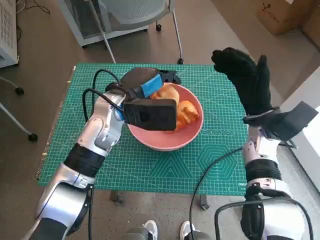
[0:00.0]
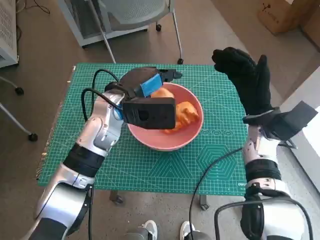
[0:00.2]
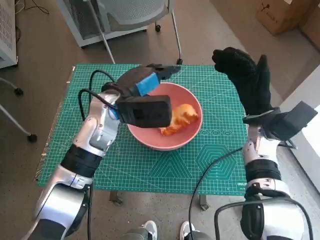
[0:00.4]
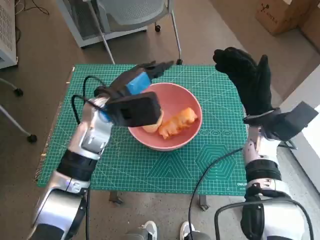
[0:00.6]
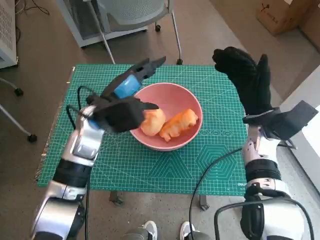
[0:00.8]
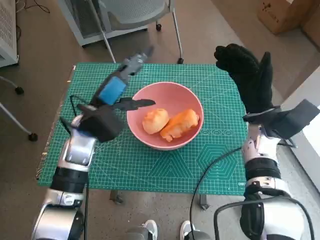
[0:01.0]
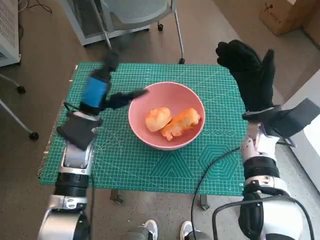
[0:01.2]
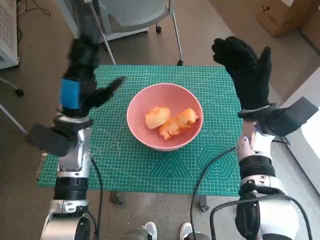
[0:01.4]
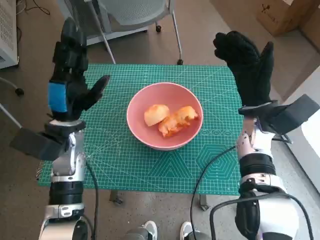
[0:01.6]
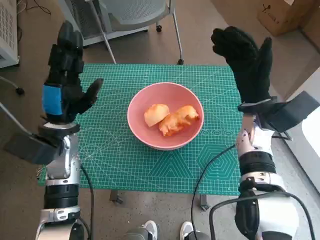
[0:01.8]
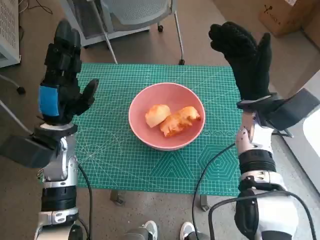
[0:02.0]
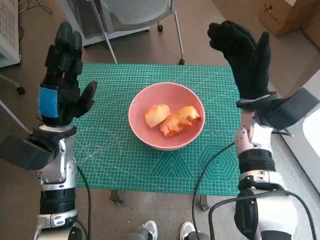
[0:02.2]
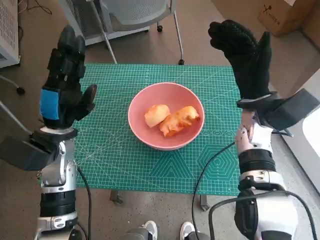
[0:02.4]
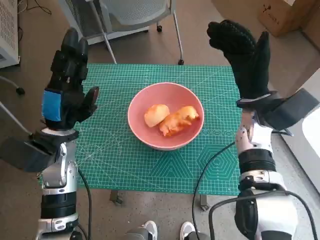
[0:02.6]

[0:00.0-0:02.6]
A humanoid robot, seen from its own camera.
0:00.0 to 0:01.2: The left hand moves to the left, some 5 cm.
0:01.2 to 0:02.6: The left hand shifts by some 5 cm.

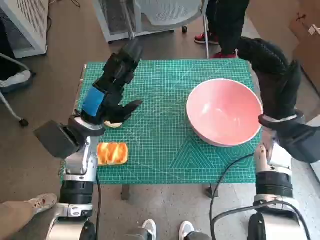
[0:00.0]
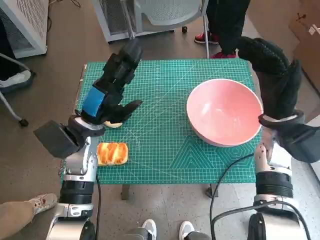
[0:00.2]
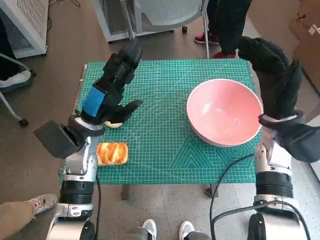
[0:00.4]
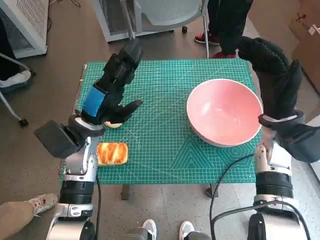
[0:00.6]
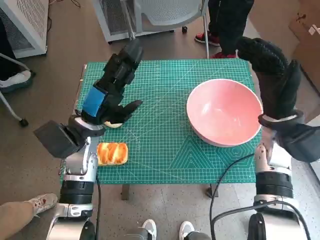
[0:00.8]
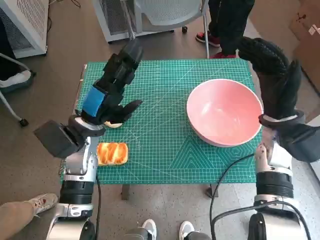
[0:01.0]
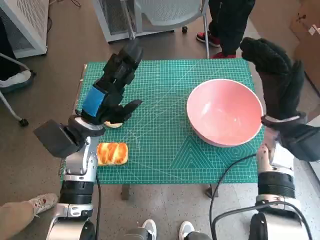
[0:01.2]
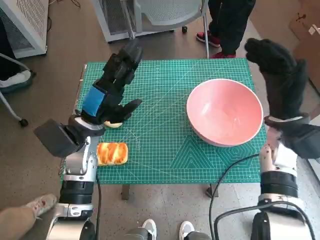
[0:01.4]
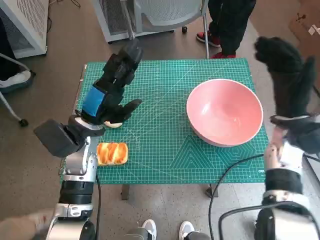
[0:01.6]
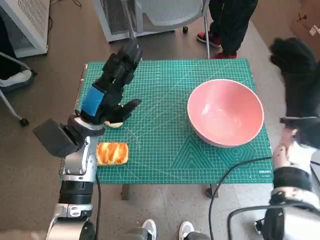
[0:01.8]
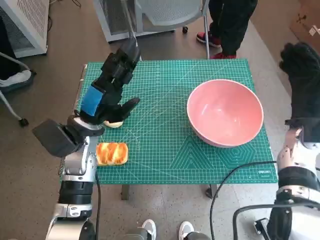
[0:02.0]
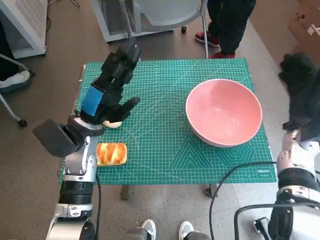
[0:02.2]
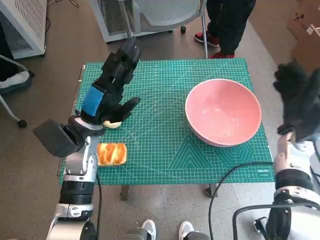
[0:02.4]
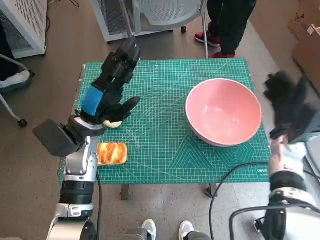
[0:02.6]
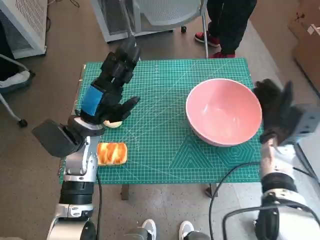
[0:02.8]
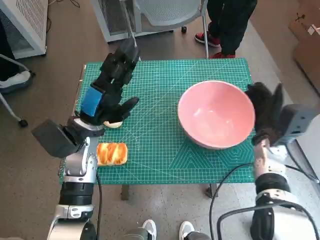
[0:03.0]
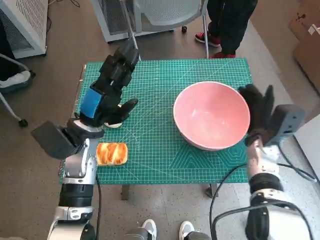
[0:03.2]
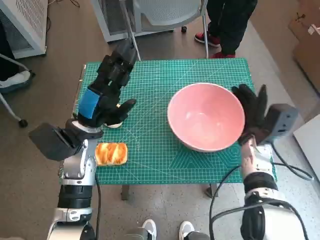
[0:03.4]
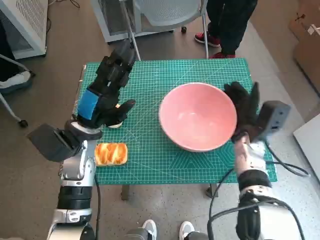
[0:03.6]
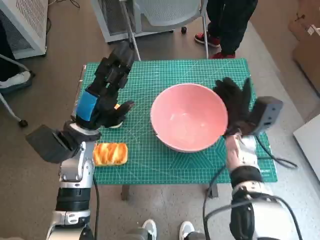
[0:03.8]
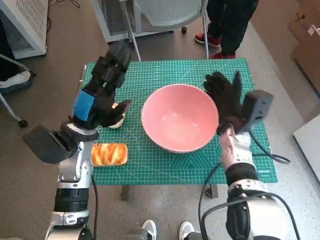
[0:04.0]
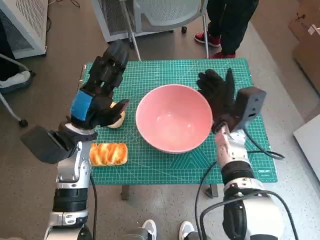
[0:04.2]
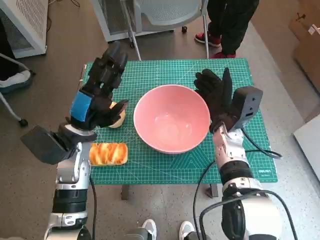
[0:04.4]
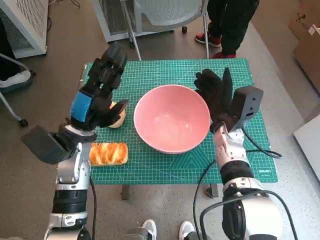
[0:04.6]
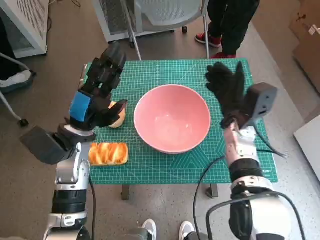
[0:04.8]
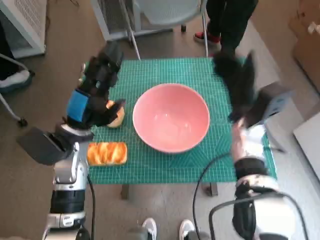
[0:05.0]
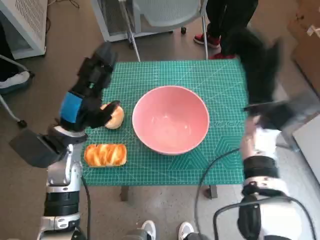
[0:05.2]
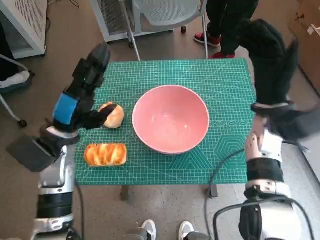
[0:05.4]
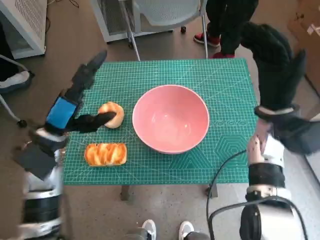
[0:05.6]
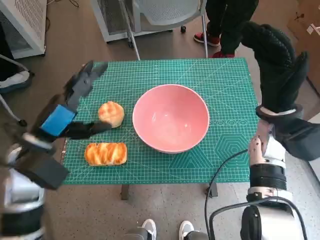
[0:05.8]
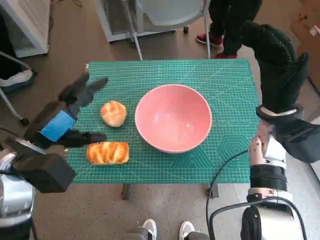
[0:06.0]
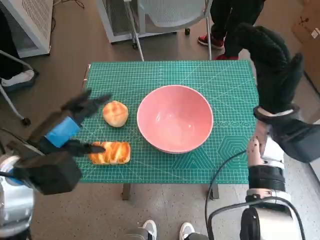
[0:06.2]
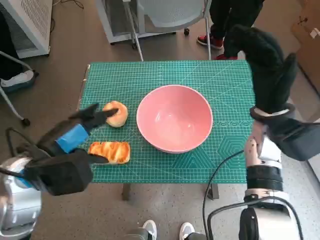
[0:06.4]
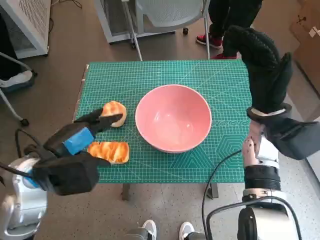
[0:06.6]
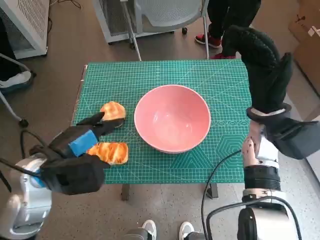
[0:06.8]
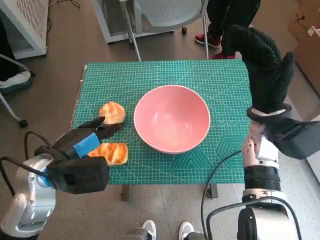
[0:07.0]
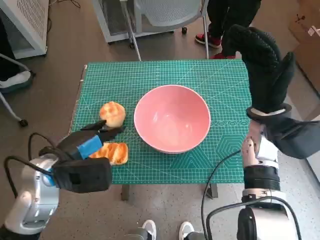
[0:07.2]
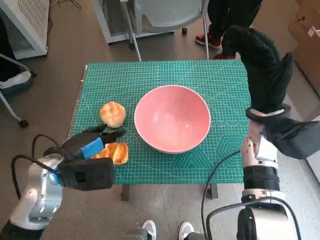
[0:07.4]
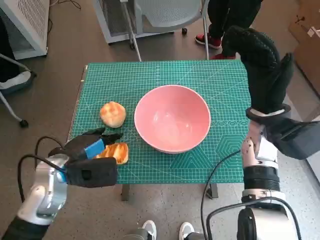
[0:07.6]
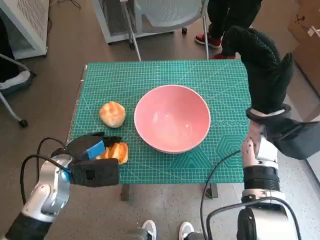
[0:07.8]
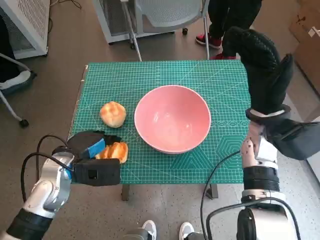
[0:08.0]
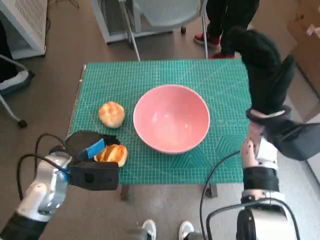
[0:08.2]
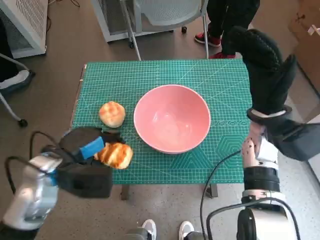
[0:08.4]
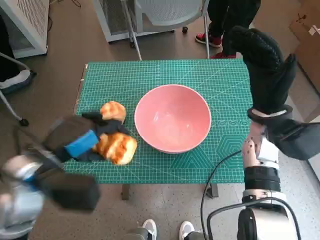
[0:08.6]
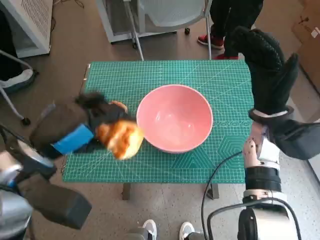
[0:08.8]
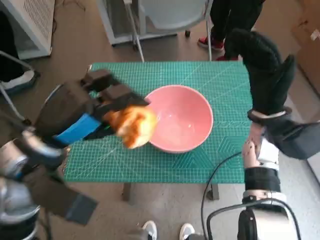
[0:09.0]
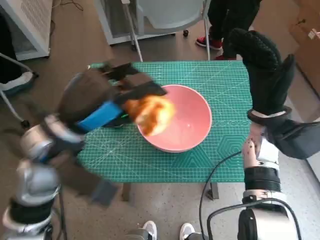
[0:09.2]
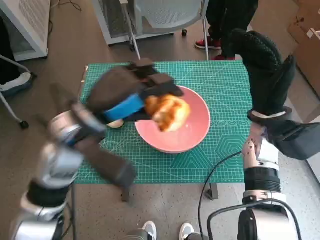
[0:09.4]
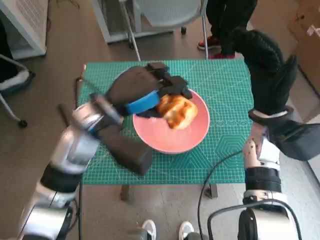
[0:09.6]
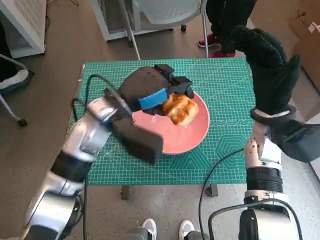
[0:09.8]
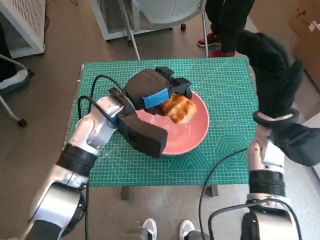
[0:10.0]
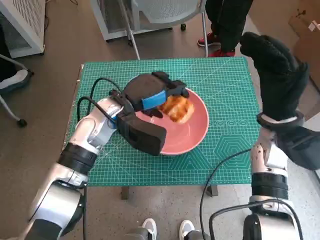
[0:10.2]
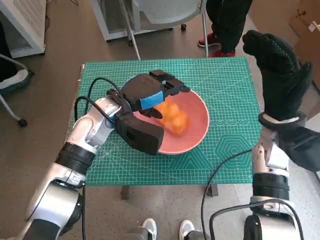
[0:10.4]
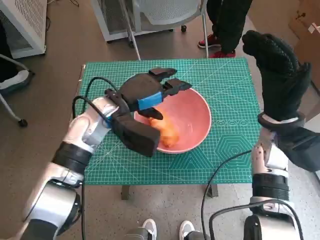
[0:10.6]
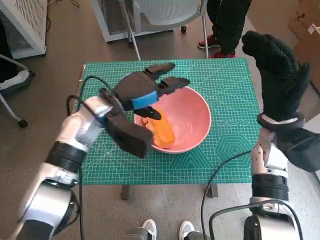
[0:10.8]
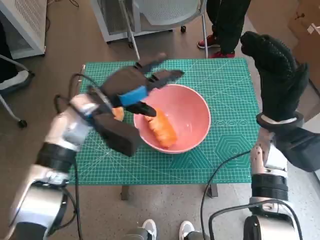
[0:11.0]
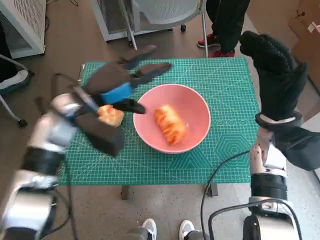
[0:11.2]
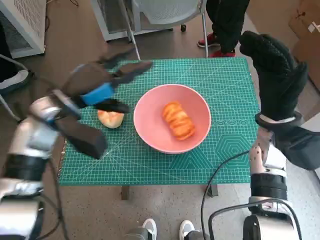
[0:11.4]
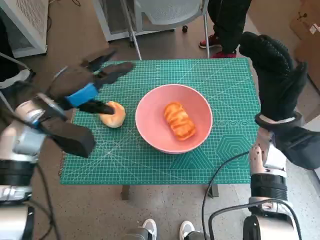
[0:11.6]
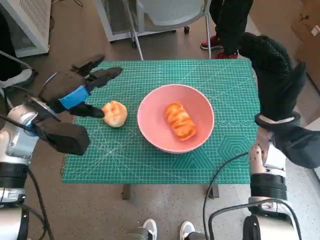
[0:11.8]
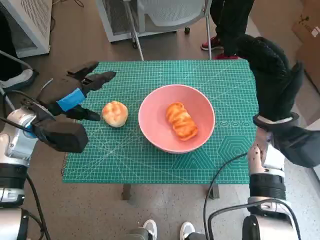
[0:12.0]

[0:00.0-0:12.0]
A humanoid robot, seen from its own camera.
Step, 0:00.0 to 0:04.6: Move the pink bowl to the center of table with right hand.
Step, 0:04.8 to 0:08.0: Grasp the long bread with left hand.
Step, 0:08.2 to 0:10.6: Place the long bread in pink bowl with left hand.
0:01.6 to 0:03.0: The right hand heads downward, covering approximately 10 cm.
0:03.0 to 0:04.4: The right hand travels to the left by some 10 cm.
0:04.4 to 0:06.0: The right hand heads upward and to the right, covering about 10 cm; the left hand travels backward and to the left by roughly 10 cm.
0:06.0 to 0:07.6: The left hand heads downward, covering approximately 5 cm.
0:07.6 to 0:09.0: The left hand travels upward by roughly 10 cm.
0:09.0 to 0:10.4: The left hand travels forward, to the right and downward by about 15 cm.
0:10.4 to 0:12.0: The left hand moves to the left, approximately 15 cm.

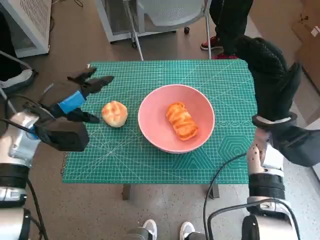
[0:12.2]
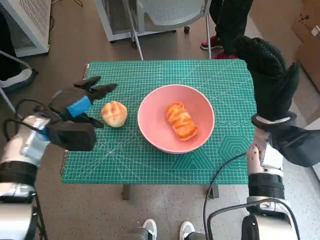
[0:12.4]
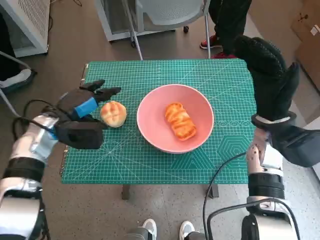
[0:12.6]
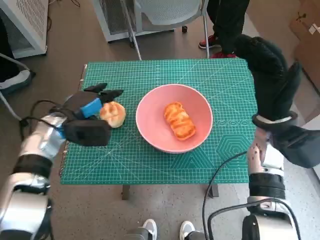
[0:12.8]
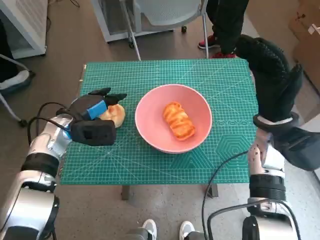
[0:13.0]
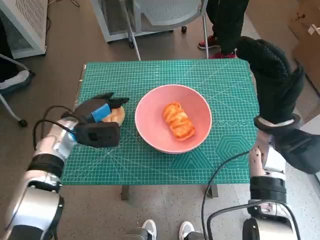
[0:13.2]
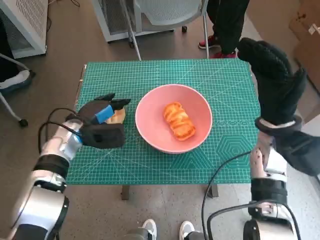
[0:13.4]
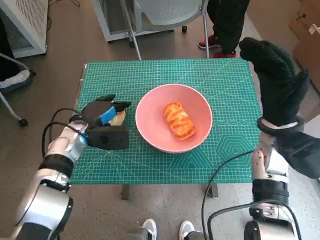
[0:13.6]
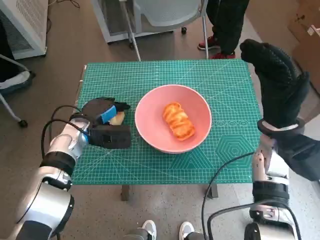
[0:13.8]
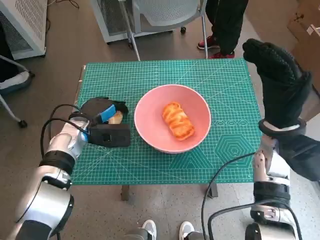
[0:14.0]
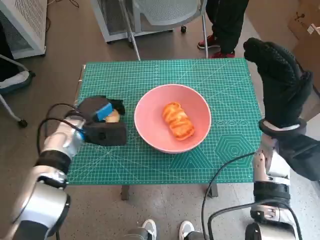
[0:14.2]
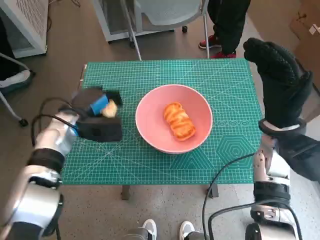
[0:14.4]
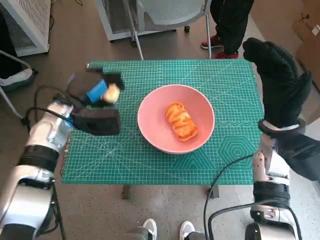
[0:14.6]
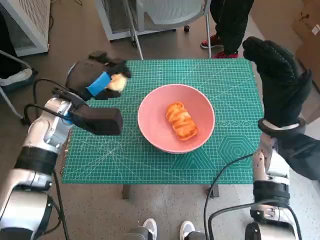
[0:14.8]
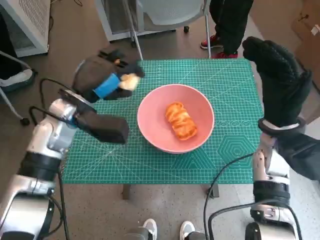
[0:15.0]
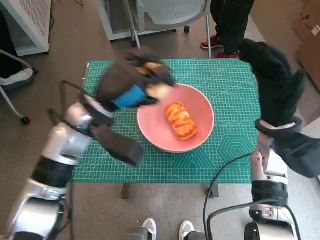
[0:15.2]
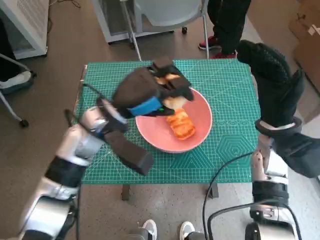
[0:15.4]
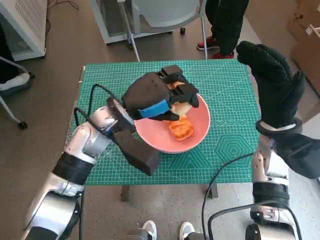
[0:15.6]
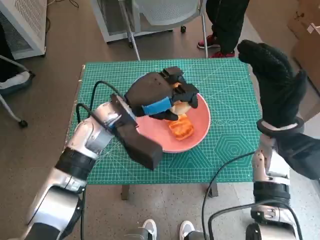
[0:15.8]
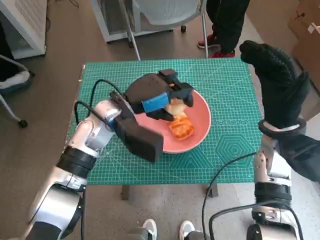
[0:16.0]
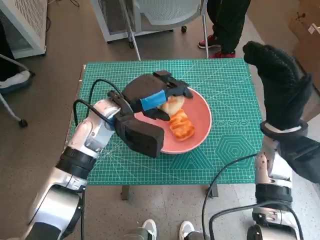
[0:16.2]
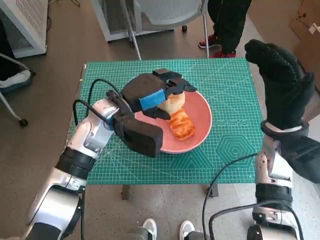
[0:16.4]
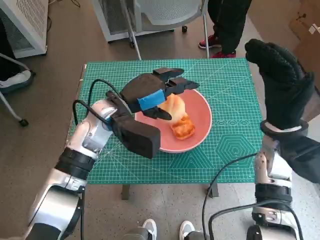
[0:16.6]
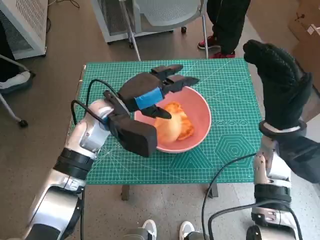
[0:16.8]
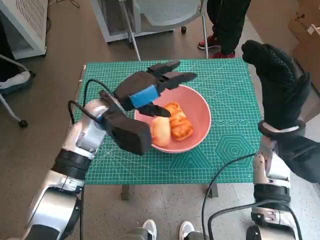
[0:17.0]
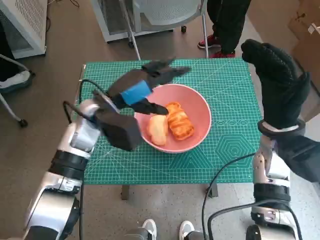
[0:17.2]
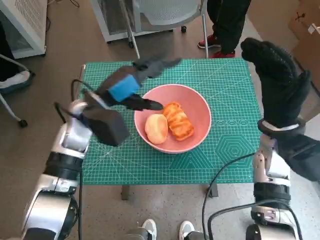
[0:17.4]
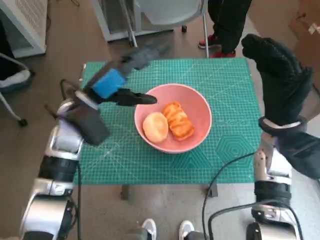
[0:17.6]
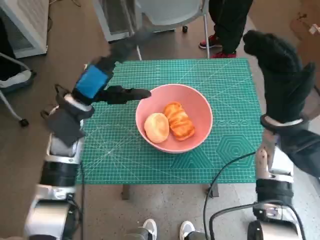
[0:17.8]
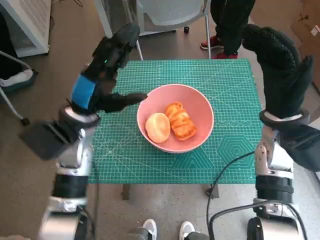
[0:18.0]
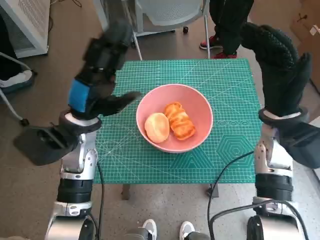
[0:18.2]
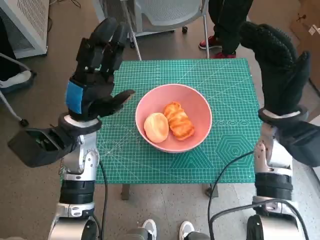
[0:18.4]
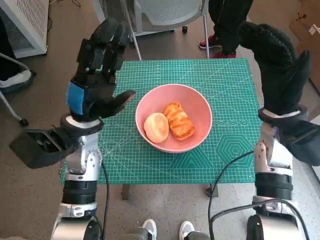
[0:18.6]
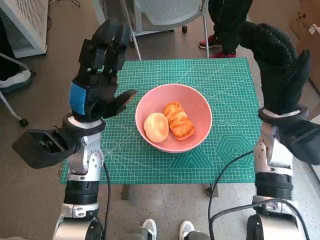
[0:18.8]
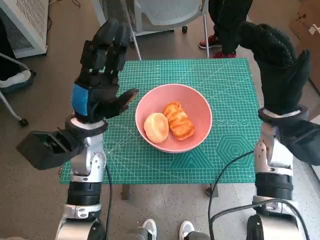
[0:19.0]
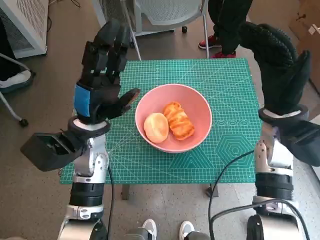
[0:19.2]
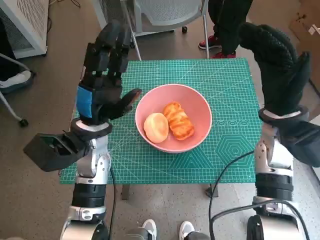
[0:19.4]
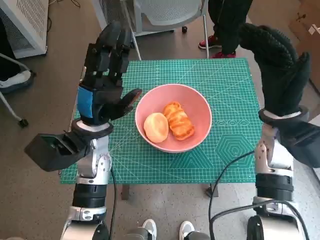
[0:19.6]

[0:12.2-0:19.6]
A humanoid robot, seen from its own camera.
Step, 0:12.2 to 0:14.0: Grasp the round bread with left hand.
Step, 0:14.2 to 0:16.8: Place the round bread in pink bowl with left hand.
0:12.2 to 0:13.6: The left hand shifts approximately 10 cm downward and to the right.
0:13.6 to 0:15.2: The left hand shifts some 10 cm upward and to the right.
0:16.6 to 0:18.2: The left hand shifts some 5 cm to the left.
0:18.2 to 0:19.6: The hands move only a little.
